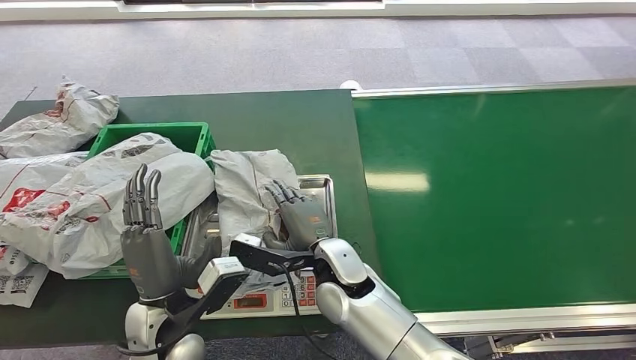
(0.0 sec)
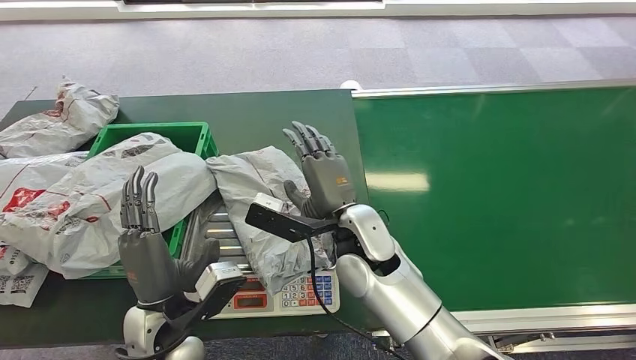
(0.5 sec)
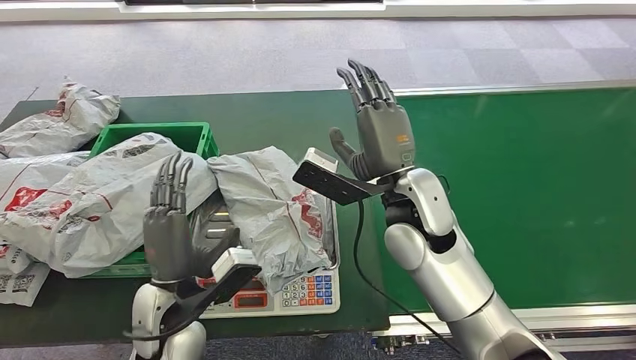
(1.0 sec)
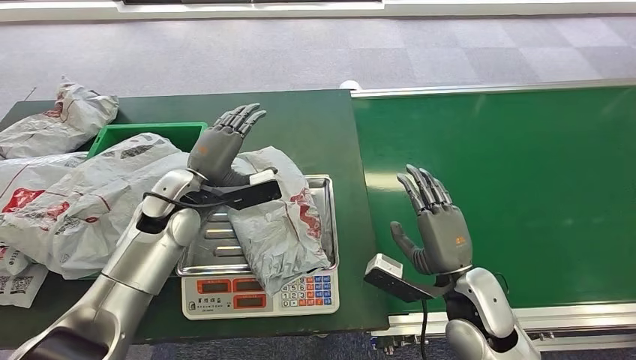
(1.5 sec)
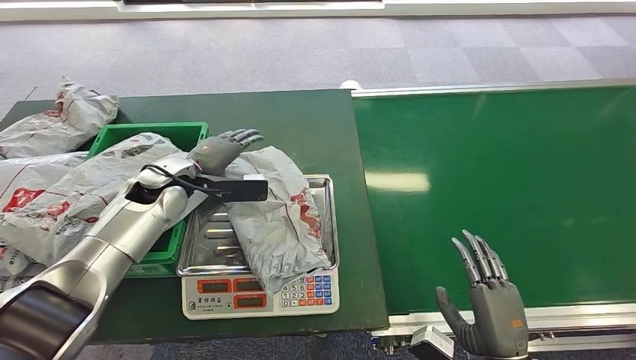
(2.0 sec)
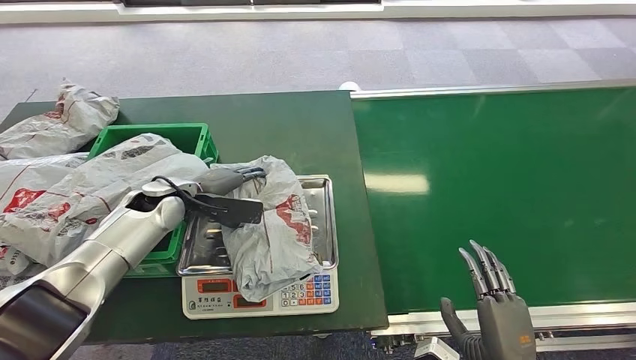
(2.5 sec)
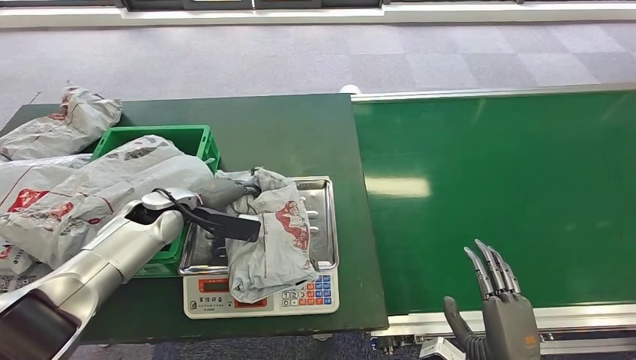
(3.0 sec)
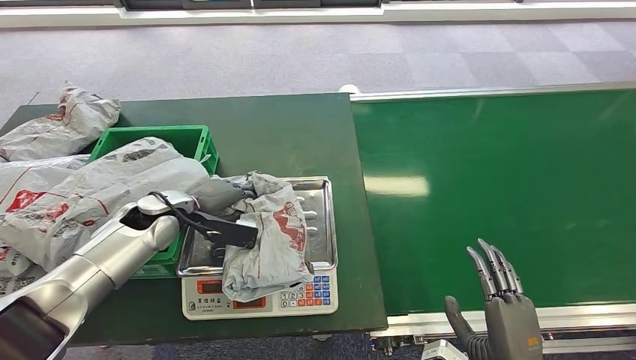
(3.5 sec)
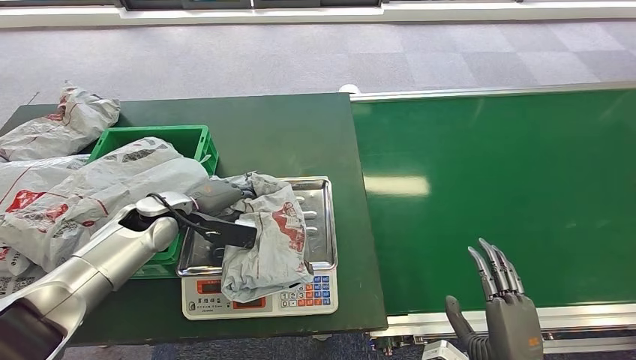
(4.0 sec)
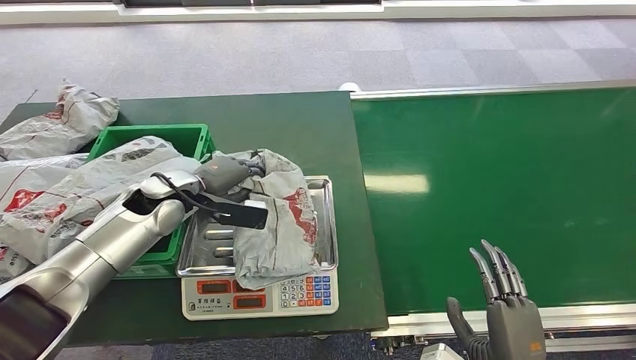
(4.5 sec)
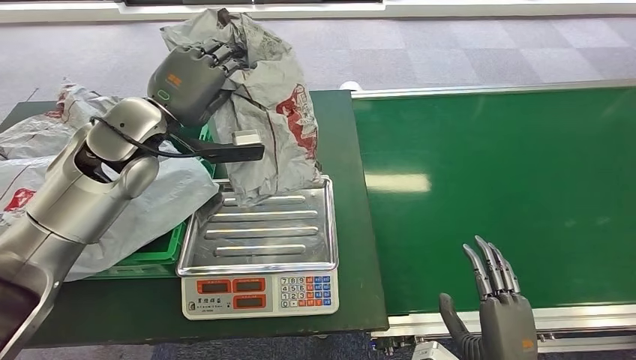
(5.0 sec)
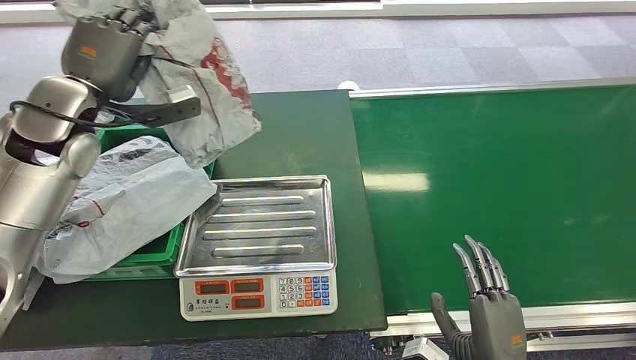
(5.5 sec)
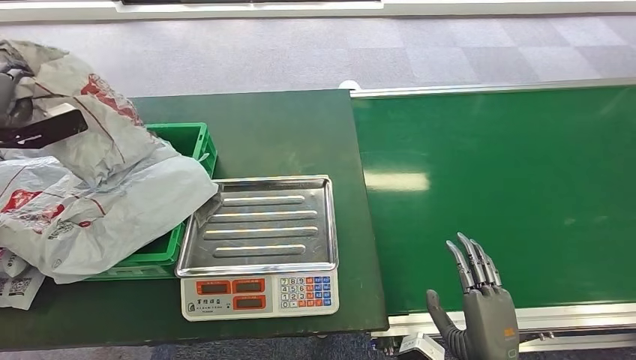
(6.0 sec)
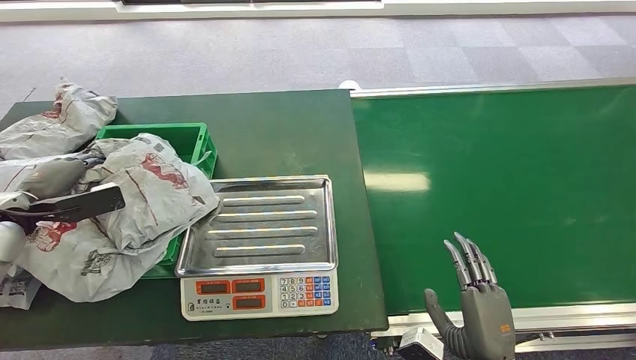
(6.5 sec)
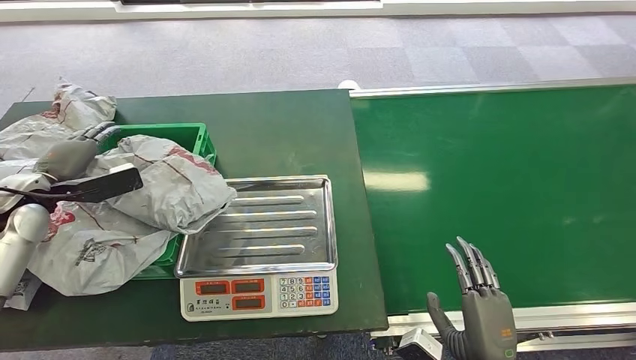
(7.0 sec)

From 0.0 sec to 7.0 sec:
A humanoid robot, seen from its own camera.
Step, from 1.5 sec to 4.5 sec: Pick up the package from the inbound machine.
Step, from 5.0 sec to 7.0 sec: Place the package into the parcel locker.
